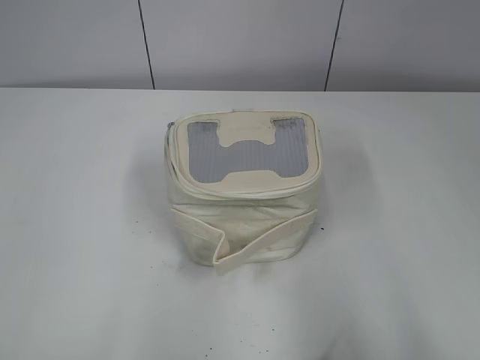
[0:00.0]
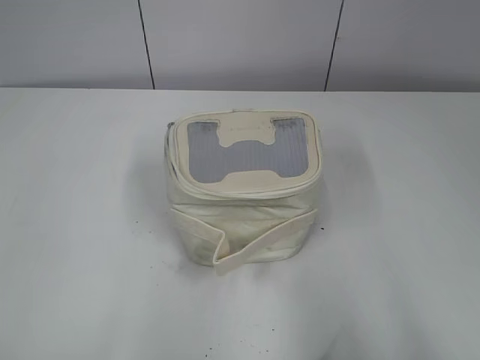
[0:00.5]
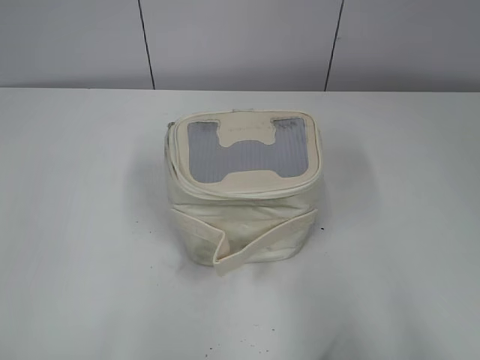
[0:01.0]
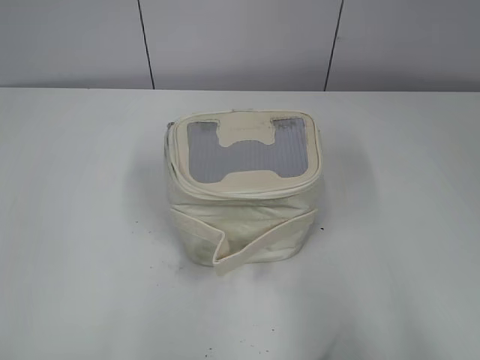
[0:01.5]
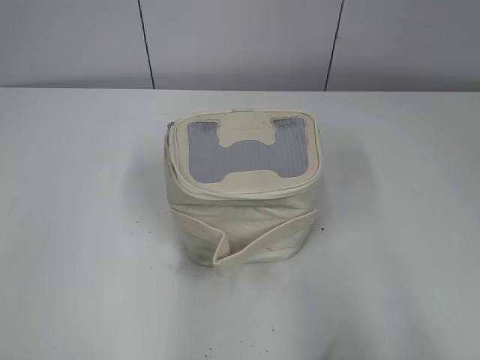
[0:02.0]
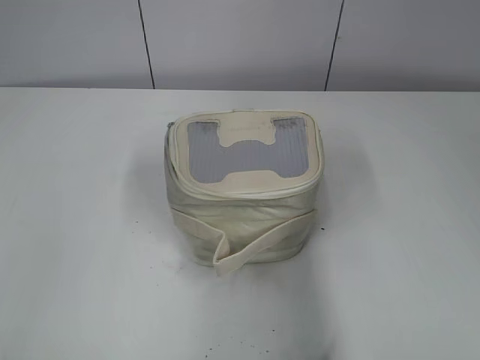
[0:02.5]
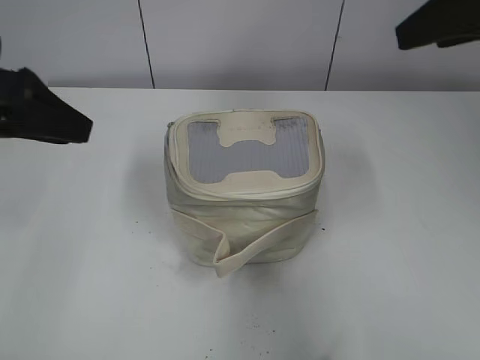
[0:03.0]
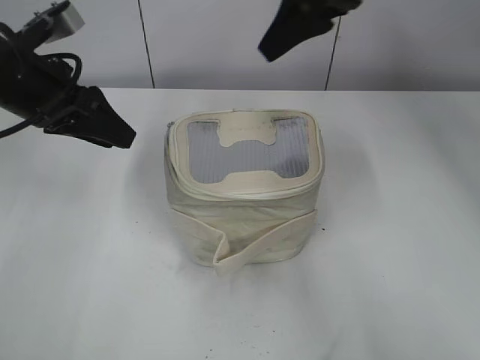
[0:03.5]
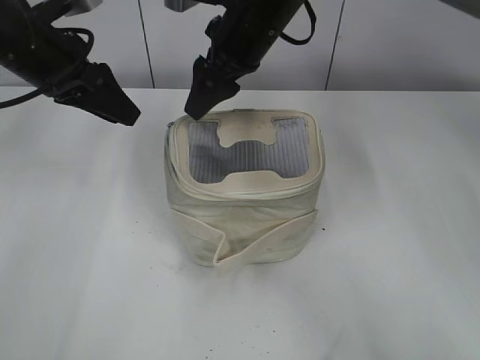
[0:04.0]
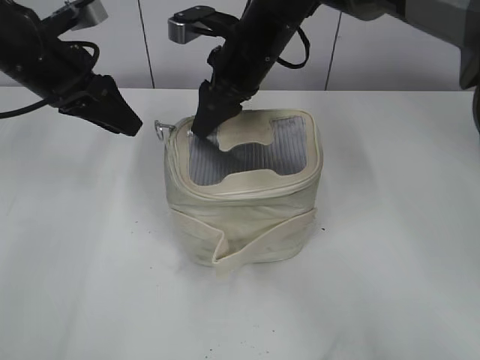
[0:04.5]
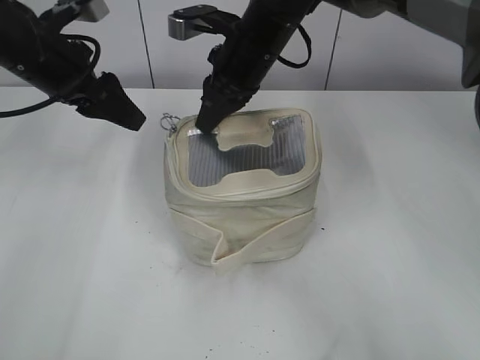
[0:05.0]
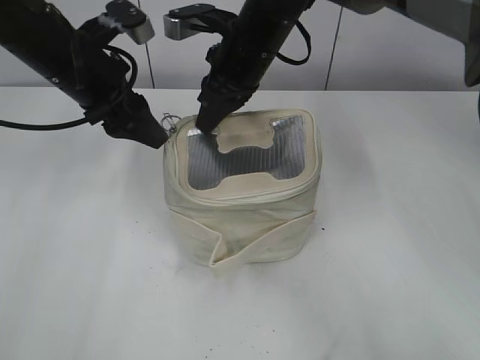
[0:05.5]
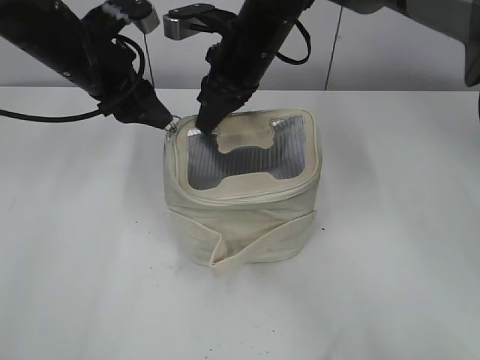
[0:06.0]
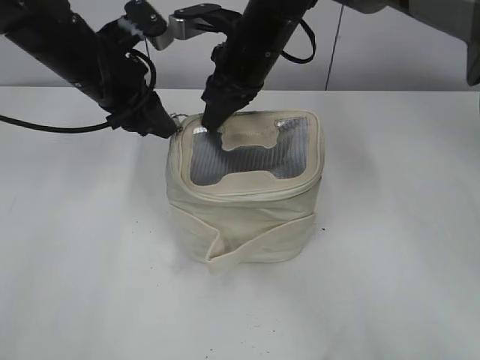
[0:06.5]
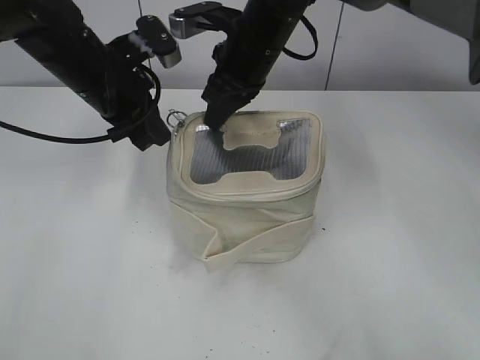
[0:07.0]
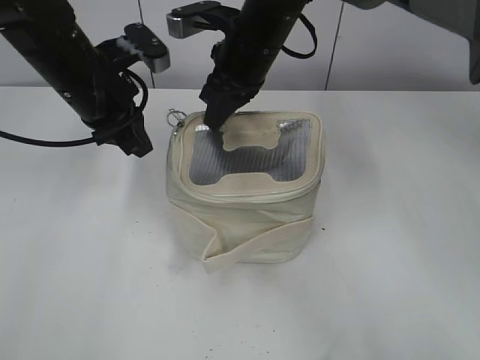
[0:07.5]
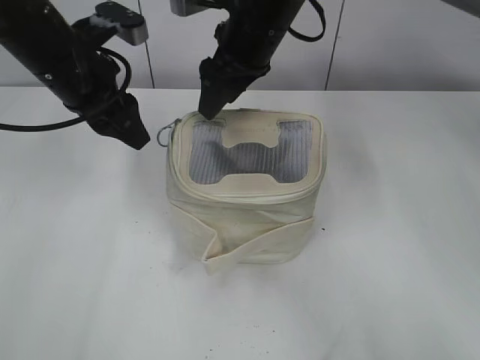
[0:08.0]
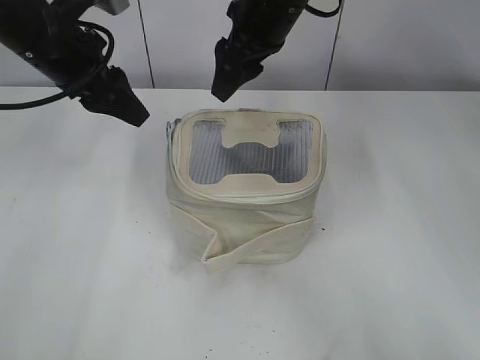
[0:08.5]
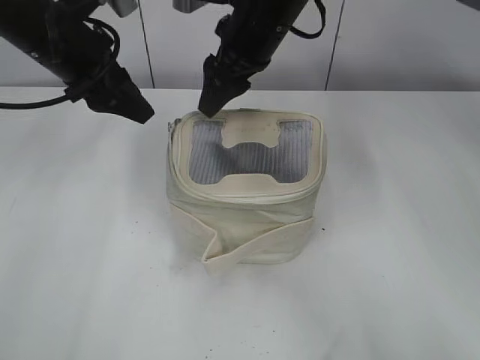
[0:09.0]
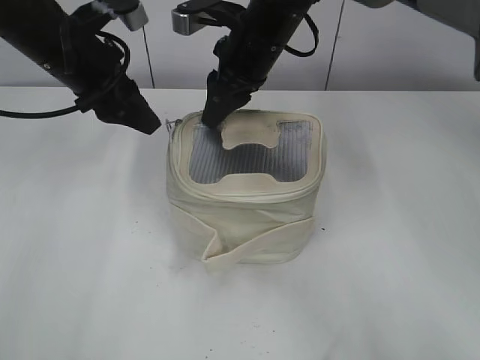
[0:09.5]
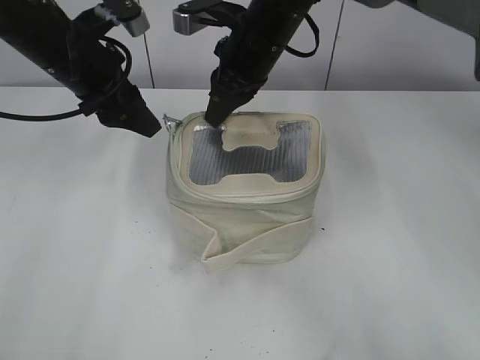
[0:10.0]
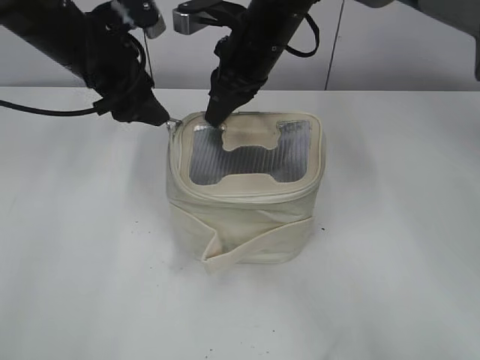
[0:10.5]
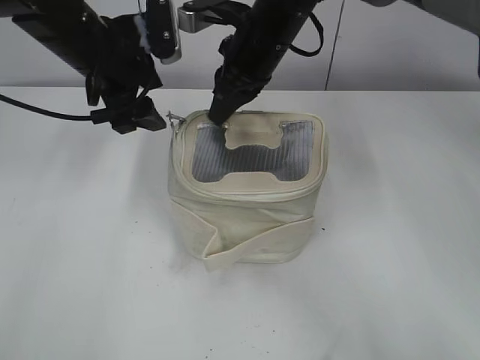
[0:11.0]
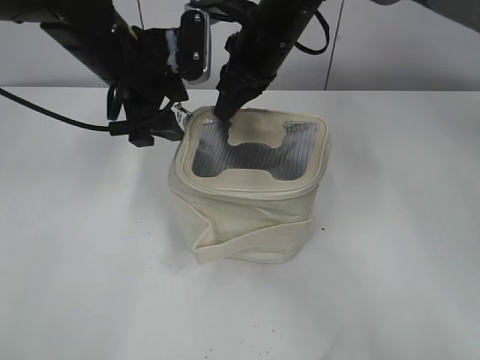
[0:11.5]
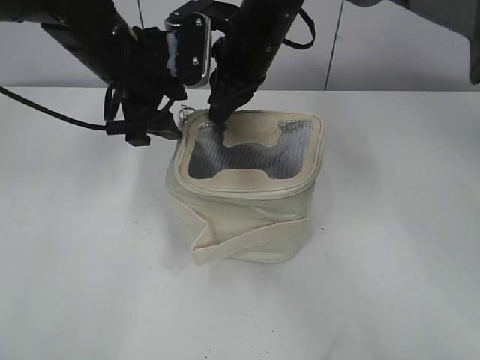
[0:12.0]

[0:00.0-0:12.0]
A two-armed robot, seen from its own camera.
0:02.0 to 0:04.0: The right gripper goes some 50 cm forward and to the left, while the left gripper travels forward by about 30 cm.
0:04.0 to 0:06.0: The left gripper ends up about 5 cm from where it was, while the right gripper closes up.
0:06.0 to 0:08.0: The left gripper closes, then opens again; the right gripper opens its fingers.
0:08.0 to 0:10.0: The right gripper closes up.
0:10.0 to 0:12.0: The left gripper shifts approximately 5 cm to the right.

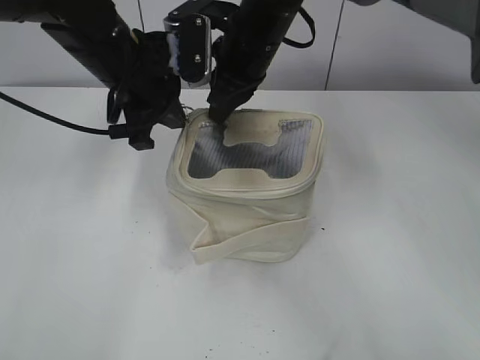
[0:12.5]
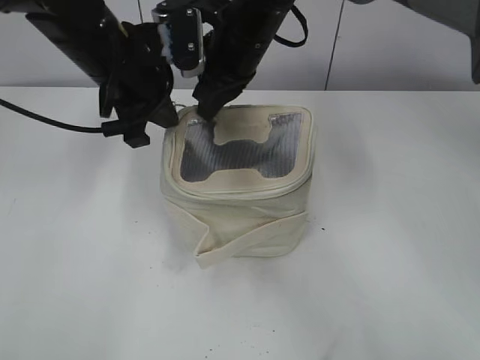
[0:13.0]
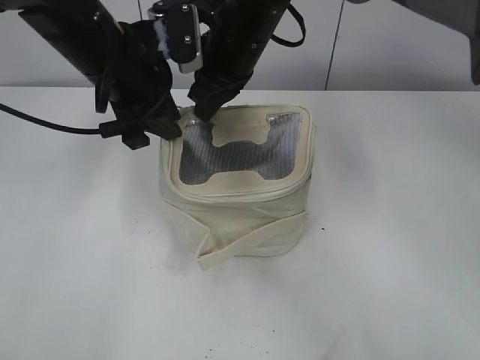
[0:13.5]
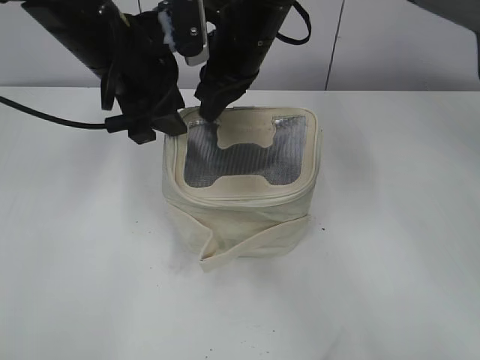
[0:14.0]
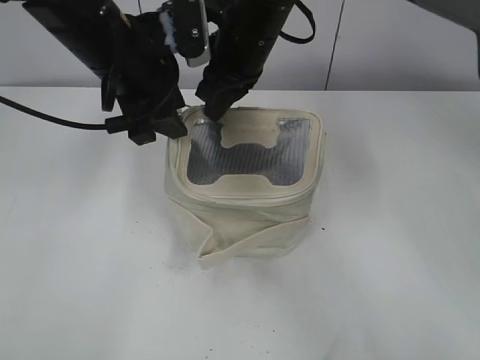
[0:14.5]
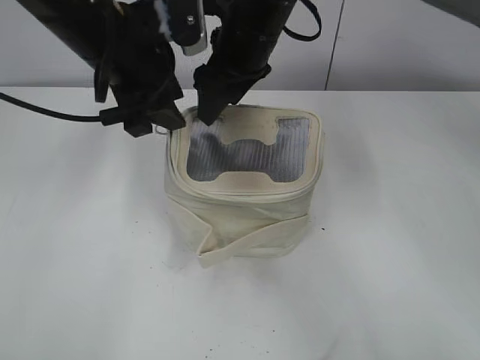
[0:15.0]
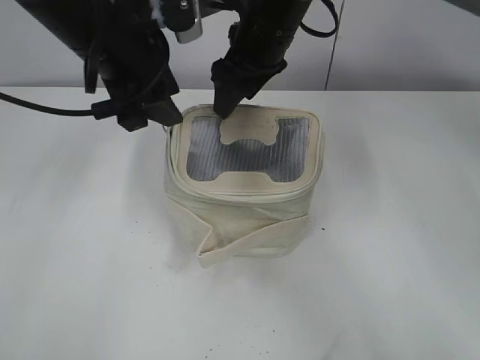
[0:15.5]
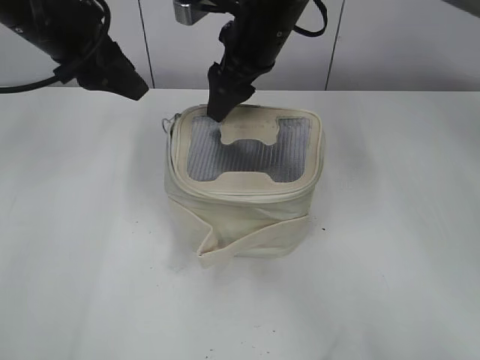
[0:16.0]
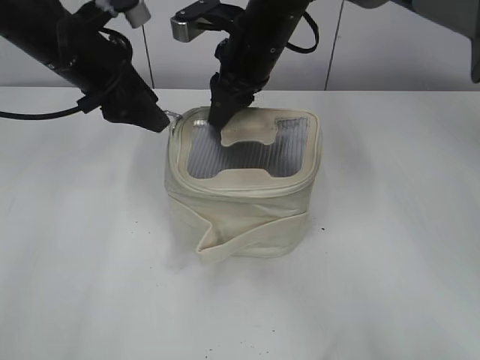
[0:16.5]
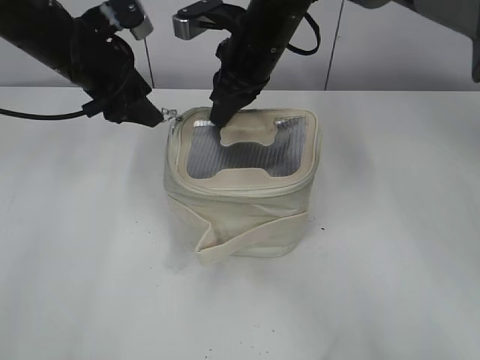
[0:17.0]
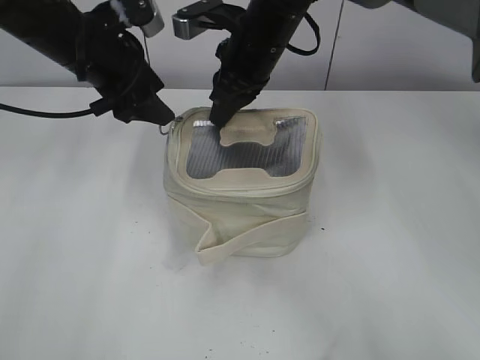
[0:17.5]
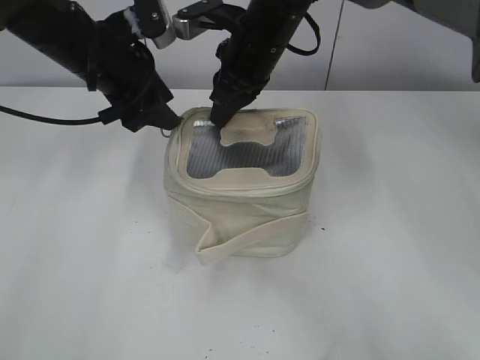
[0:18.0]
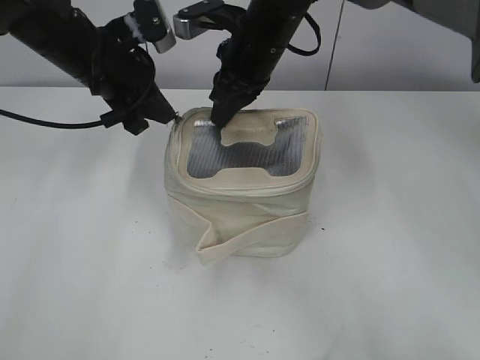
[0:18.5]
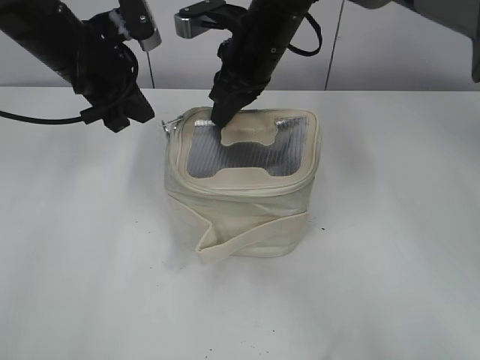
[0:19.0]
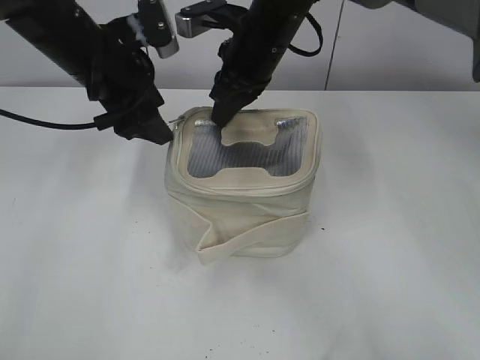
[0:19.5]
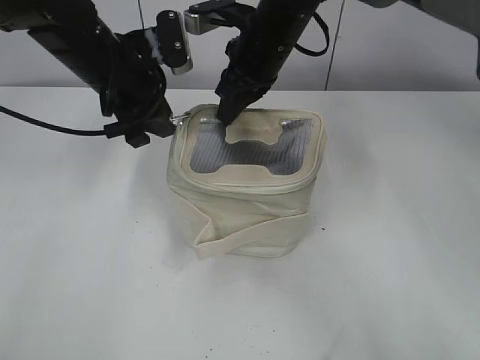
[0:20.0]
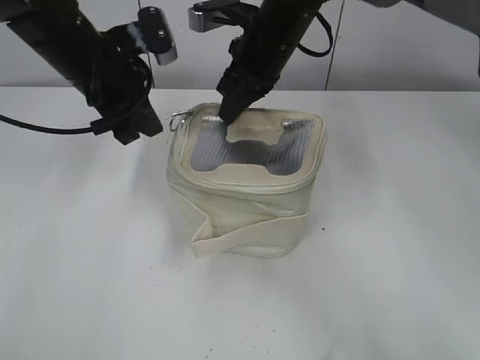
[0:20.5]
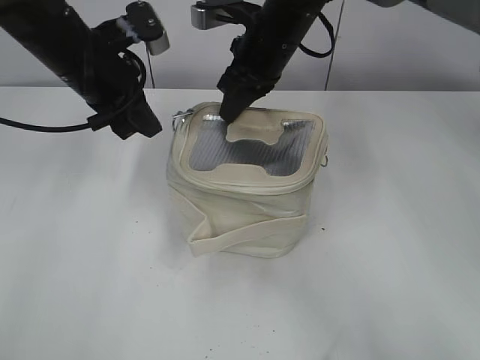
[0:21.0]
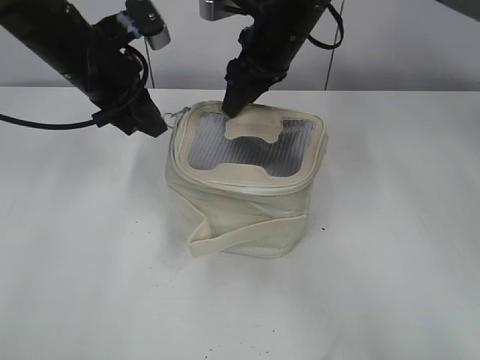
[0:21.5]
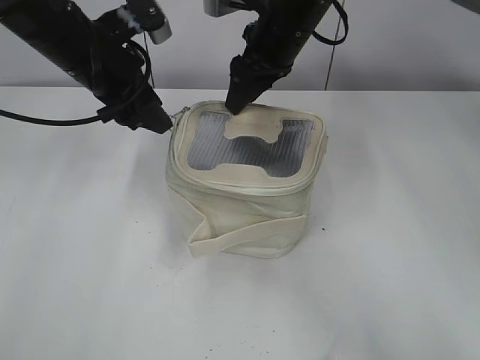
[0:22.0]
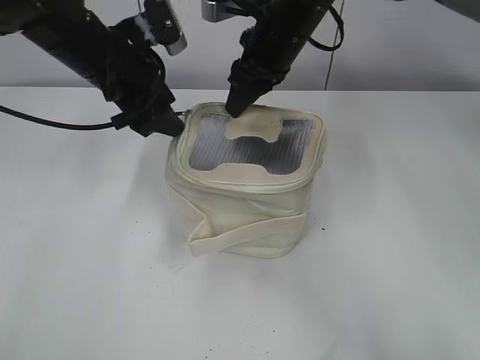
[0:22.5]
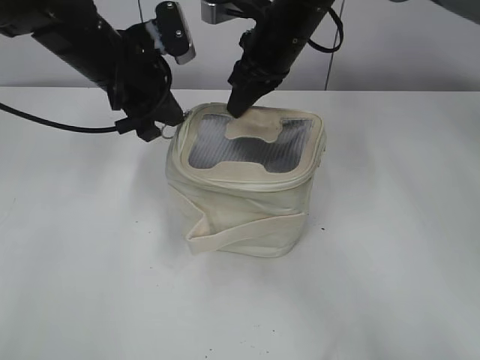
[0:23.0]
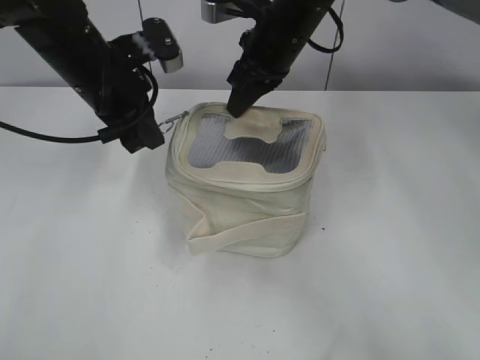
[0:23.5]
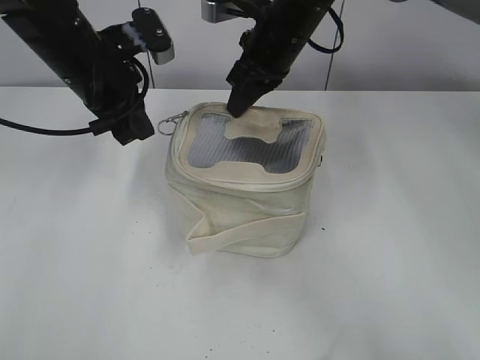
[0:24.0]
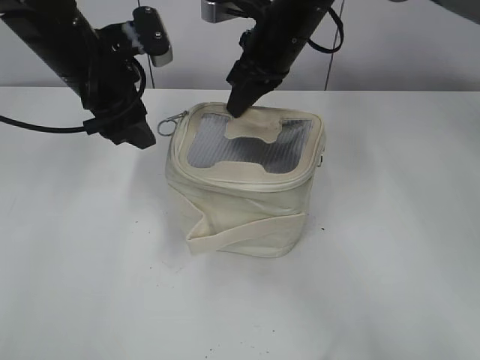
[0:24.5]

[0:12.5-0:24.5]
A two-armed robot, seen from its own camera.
0:12.5 to 0:14.5: The left gripper opens up.
0:14.5 to 0:16.5: The left gripper heads to the left, covering about 5 cm. The right gripper opens and closes again.
0:16.5 to 0:18.5: The left gripper closes; the right gripper closes up.
0:18.5 to 0:20.5: The left gripper opens, then closes once more.
0:20.5 to 0:22.5: The right gripper opens. The left gripper opens.
0:22.5 to 0:24.5: The right gripper closes its fingers. The left gripper closes, then opens again.

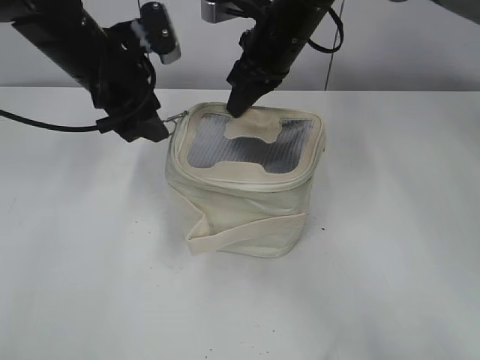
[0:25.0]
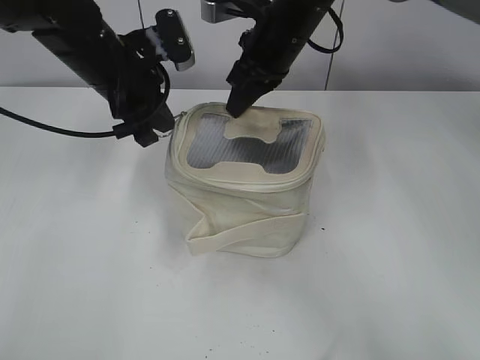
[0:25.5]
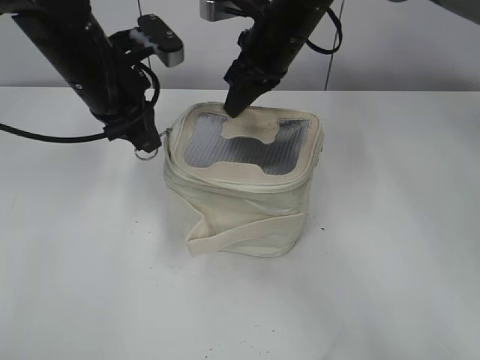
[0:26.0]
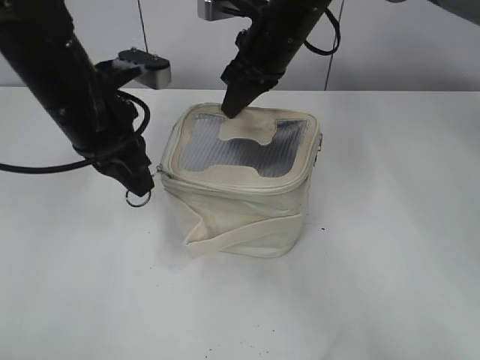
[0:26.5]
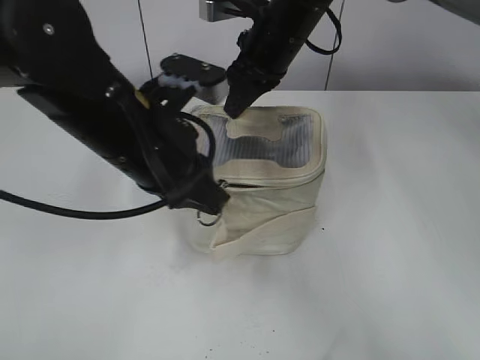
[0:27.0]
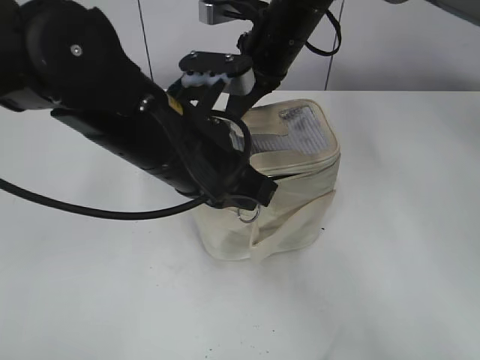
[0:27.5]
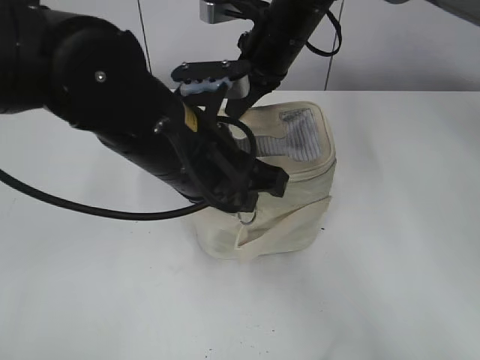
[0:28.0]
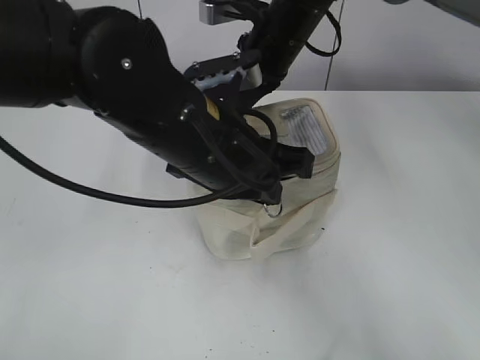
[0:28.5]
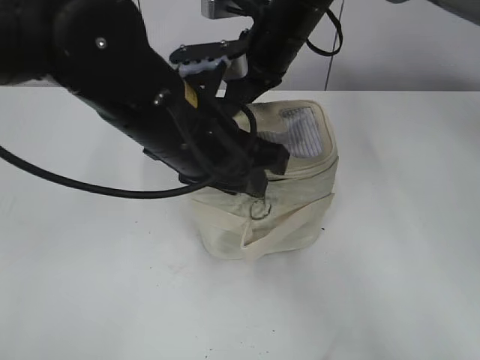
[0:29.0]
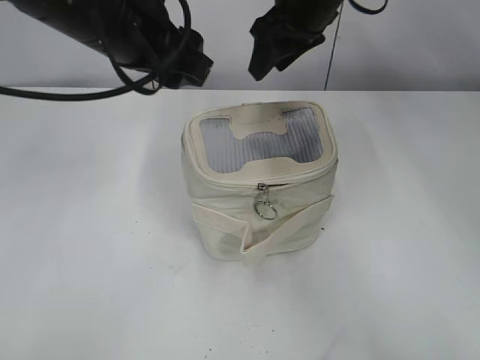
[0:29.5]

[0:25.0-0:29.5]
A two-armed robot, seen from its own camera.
Step, 0:25.0 to 0:28.5: Zip up the bag with your left hand.
0:25.0 to 0:27.0: The left gripper travels backward and to the right by roughly 15 cm, and closes up.
0:27.0 to 0:29.5: The left gripper moves upward, approximately 10 cm, and opens, while the right gripper shifts by about 5 cm, and opens its fingers.
